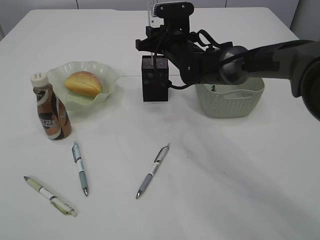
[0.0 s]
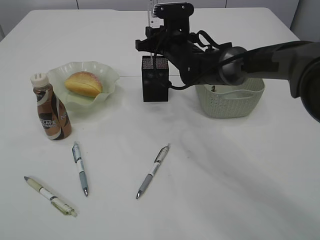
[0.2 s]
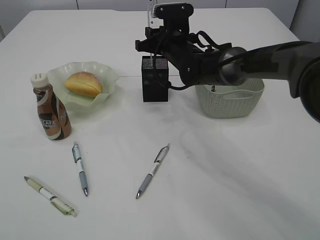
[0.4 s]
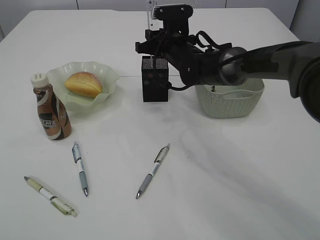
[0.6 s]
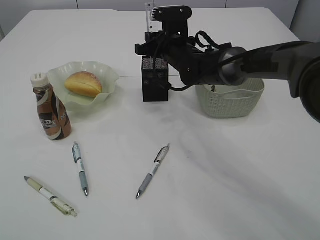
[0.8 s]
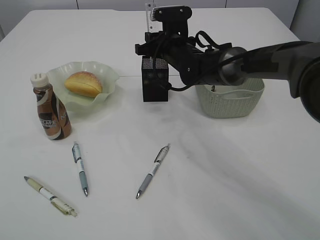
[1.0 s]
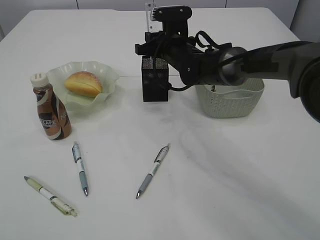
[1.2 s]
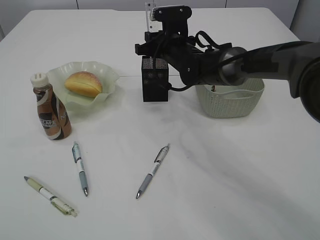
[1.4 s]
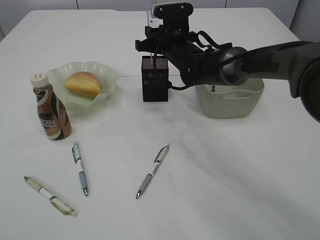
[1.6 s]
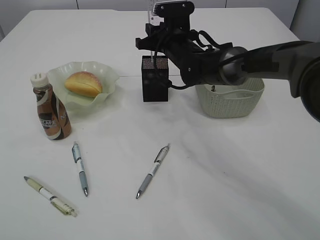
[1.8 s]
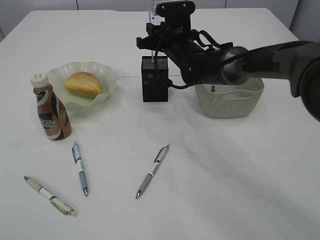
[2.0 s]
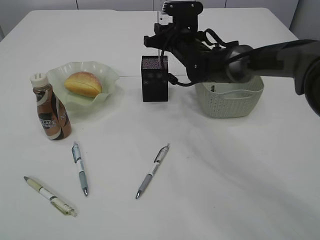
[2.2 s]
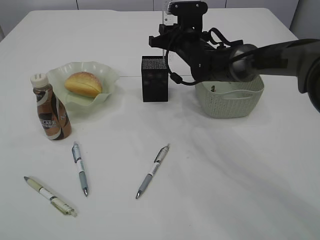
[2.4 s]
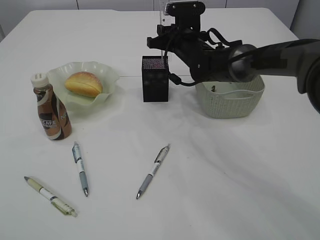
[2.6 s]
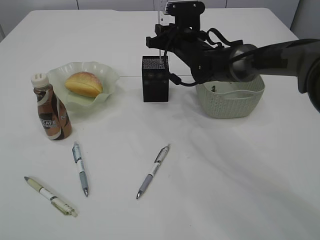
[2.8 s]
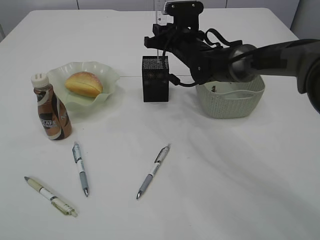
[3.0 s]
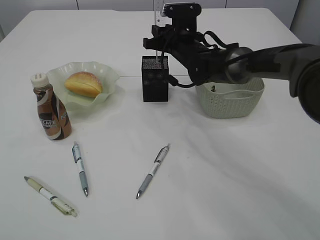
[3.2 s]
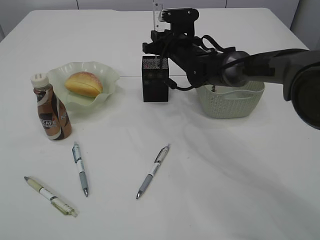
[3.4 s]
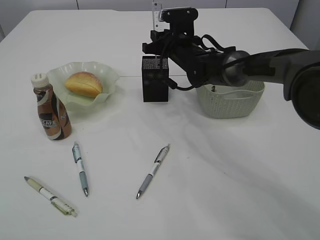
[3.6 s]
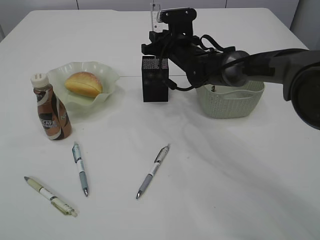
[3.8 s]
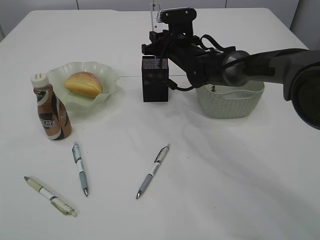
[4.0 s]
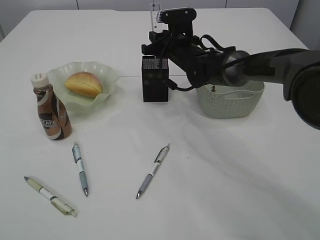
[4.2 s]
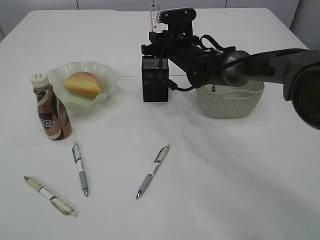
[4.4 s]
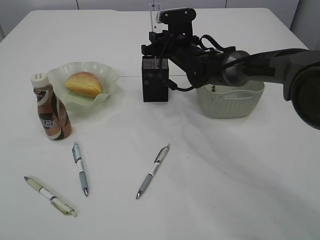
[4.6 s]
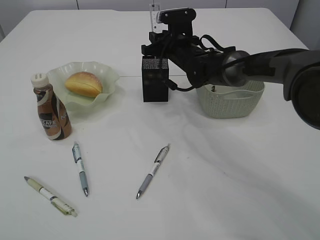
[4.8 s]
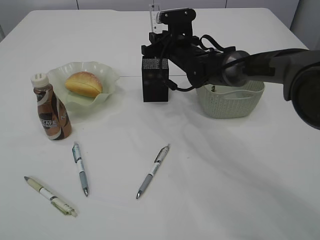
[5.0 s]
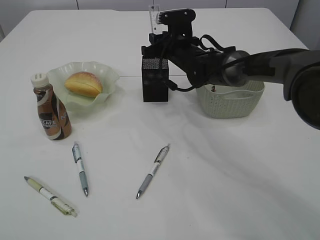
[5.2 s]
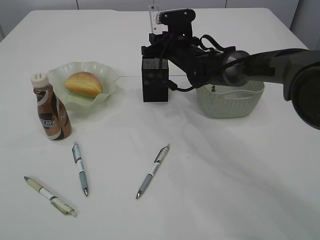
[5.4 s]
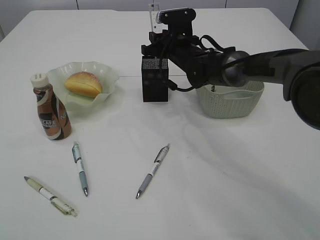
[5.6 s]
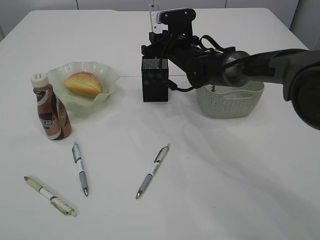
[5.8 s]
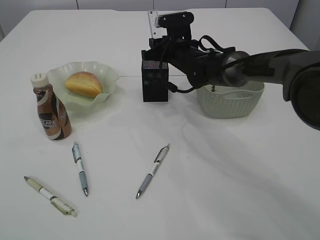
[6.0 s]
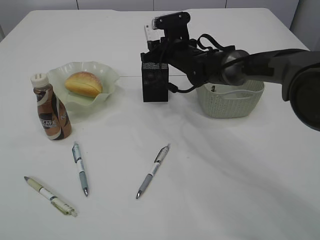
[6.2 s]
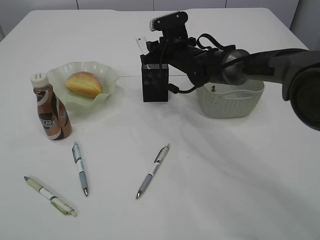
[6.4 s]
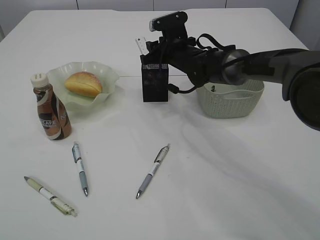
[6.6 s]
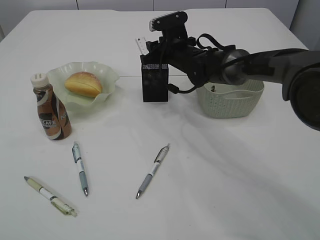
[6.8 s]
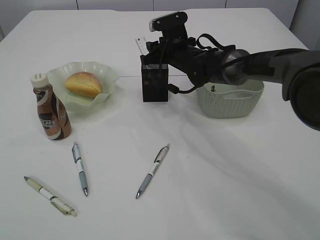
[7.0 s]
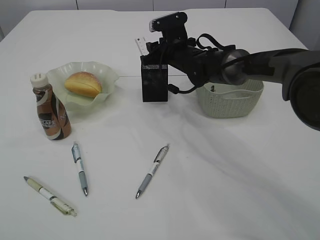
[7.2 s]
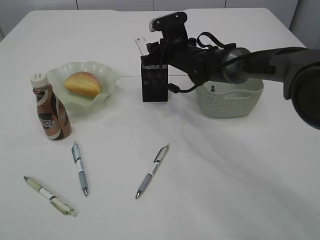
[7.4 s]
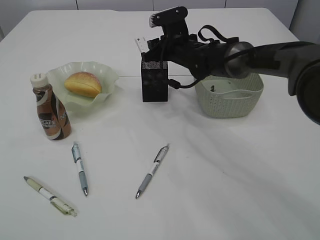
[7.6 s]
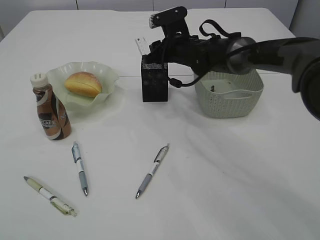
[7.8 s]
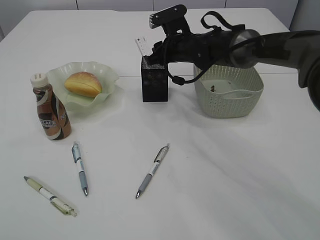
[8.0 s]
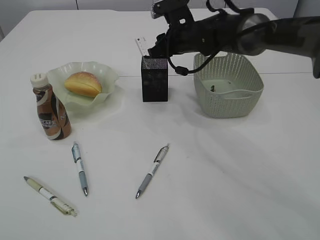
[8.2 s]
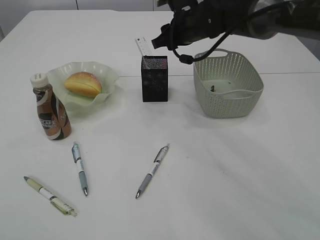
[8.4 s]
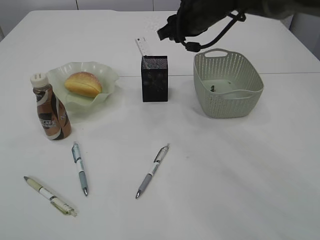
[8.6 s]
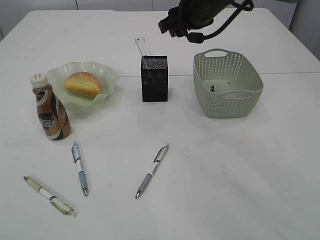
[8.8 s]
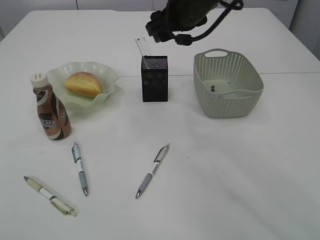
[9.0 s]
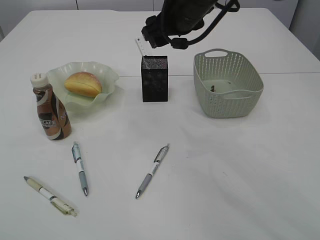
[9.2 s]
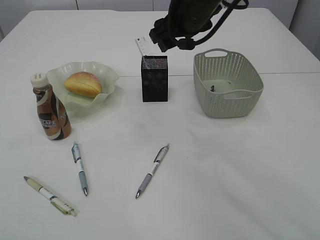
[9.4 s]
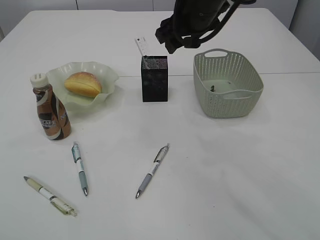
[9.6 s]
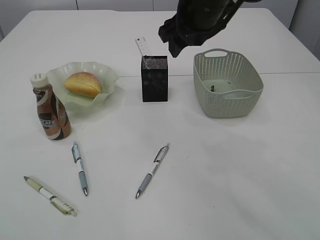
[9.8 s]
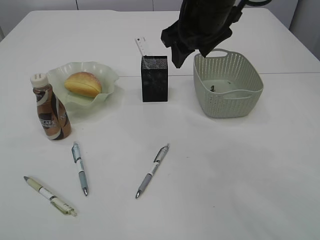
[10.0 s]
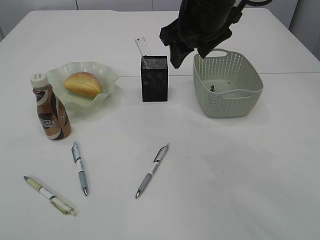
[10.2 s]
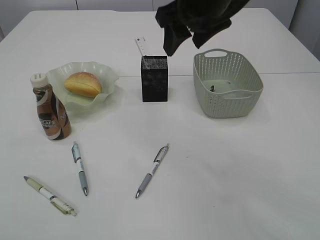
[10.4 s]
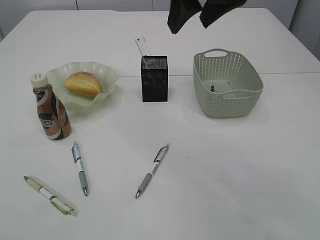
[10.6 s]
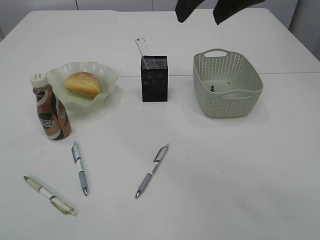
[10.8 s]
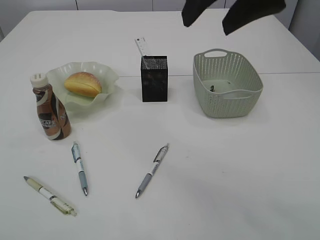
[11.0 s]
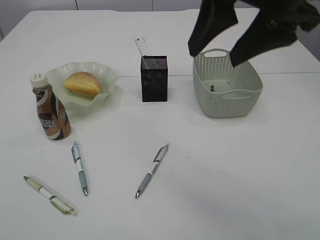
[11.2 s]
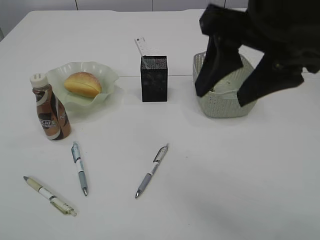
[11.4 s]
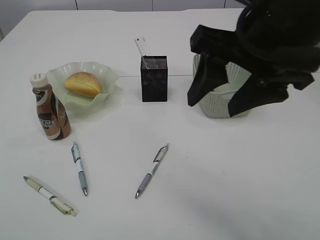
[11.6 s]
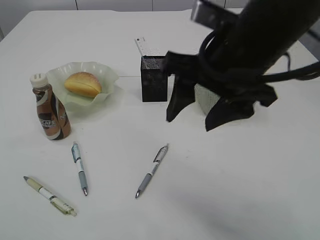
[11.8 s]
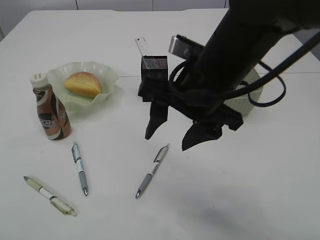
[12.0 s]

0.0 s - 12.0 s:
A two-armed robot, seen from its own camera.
Step, 0.0 s - 8.4 s: Place the ruler into the pen holder.
0.0 s - 1.6 s: Both grippers stay about where they are.
1.6 s - 4.4 s: There are only small adjustments of the grippers.
4.4 s - 6.0 s: Neither gripper changes place.
6.0 s - 7.6 s: The grippers make only small movements.
7.6 s - 9.0 s: The right gripper travels upward and backward by some 15 cm, and opens its fingers.
9.0 s - 10.4 s: The right gripper travels backward by some 10 cm.
10.4 s - 12.0 s: The right gripper heads backward and downward, covering about 10 cm.

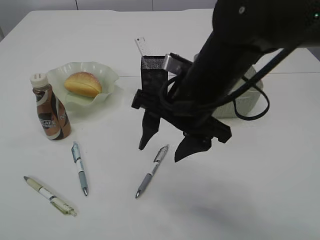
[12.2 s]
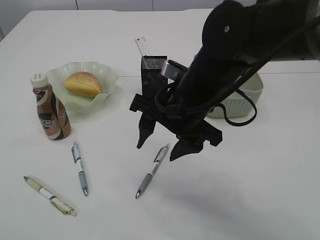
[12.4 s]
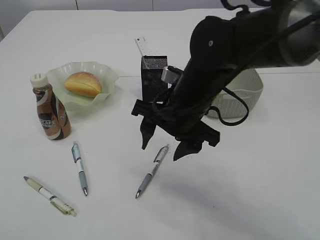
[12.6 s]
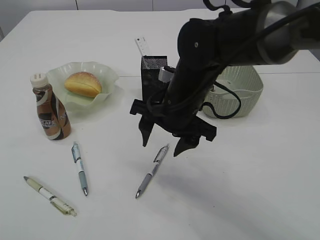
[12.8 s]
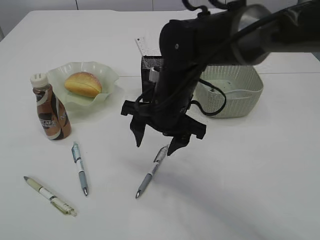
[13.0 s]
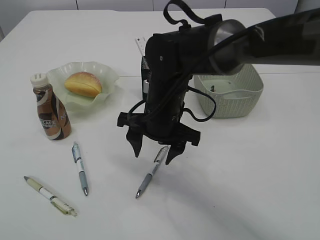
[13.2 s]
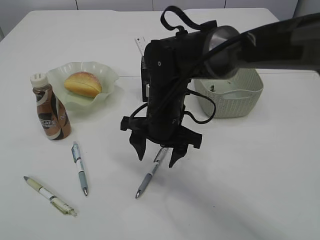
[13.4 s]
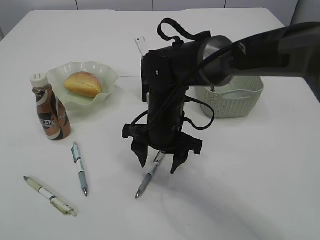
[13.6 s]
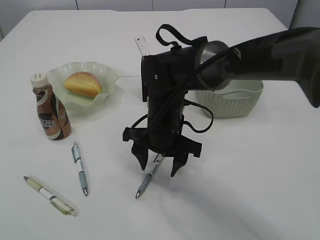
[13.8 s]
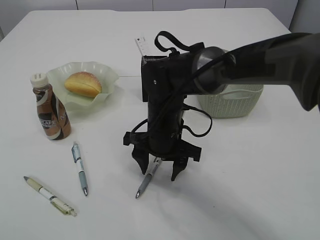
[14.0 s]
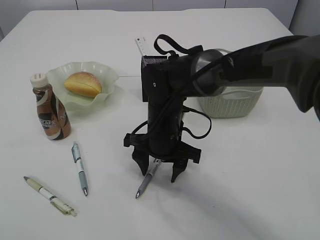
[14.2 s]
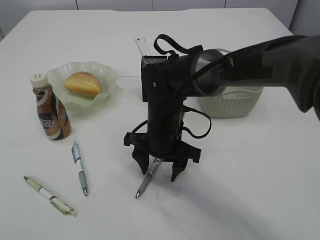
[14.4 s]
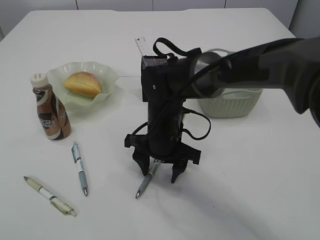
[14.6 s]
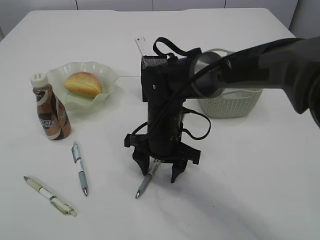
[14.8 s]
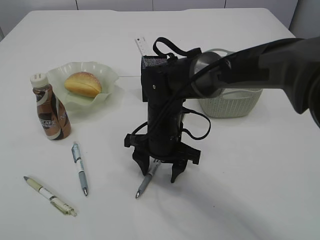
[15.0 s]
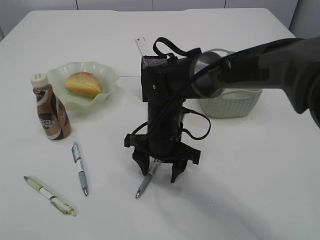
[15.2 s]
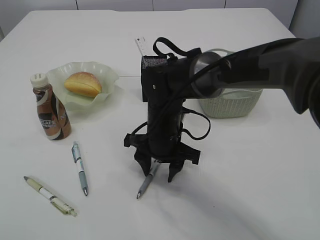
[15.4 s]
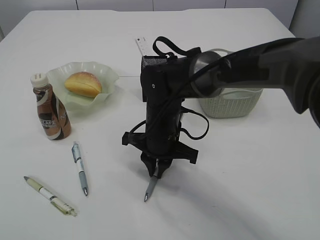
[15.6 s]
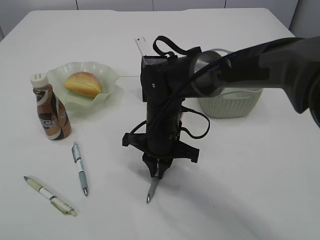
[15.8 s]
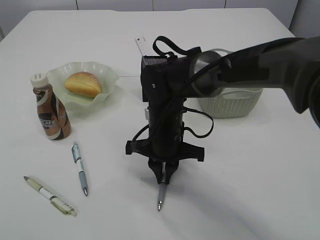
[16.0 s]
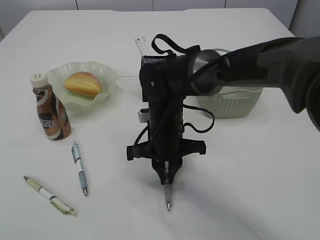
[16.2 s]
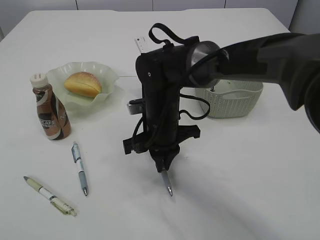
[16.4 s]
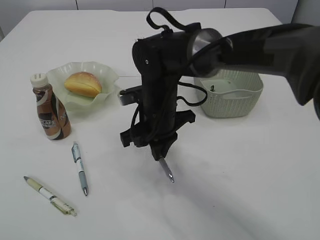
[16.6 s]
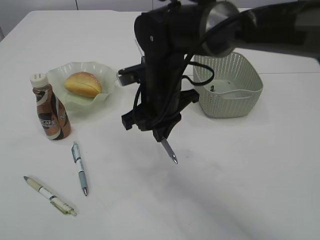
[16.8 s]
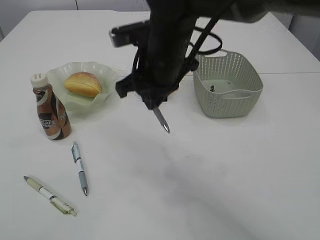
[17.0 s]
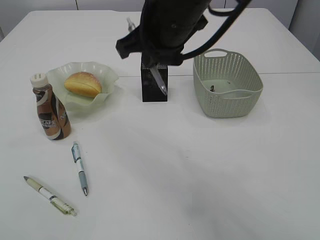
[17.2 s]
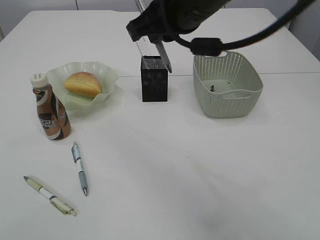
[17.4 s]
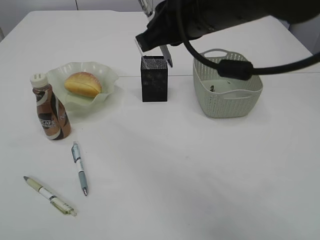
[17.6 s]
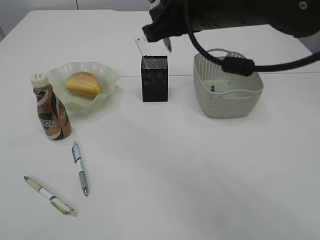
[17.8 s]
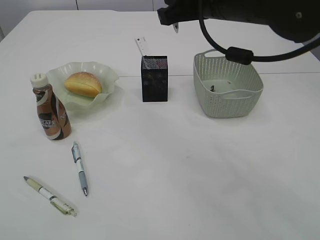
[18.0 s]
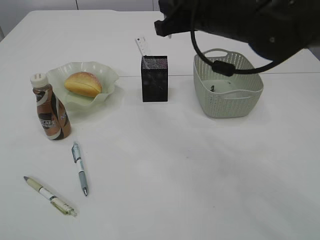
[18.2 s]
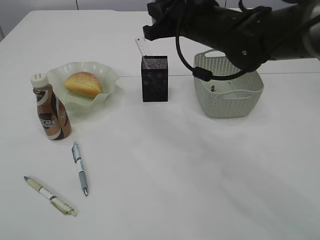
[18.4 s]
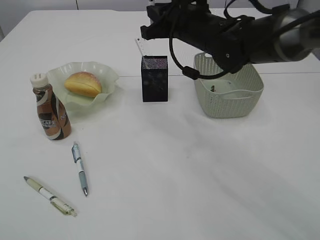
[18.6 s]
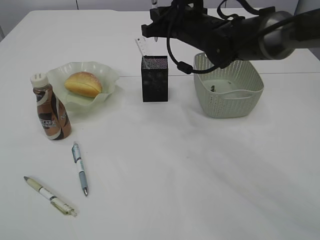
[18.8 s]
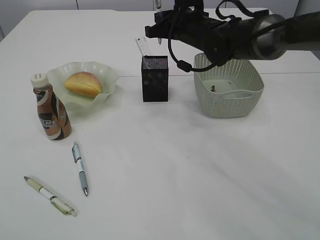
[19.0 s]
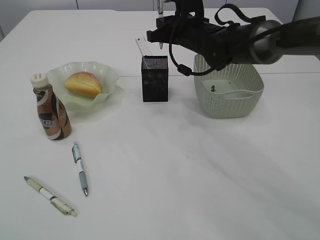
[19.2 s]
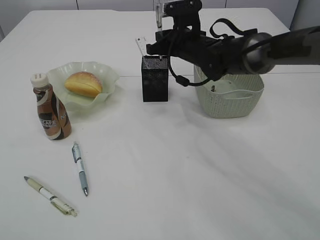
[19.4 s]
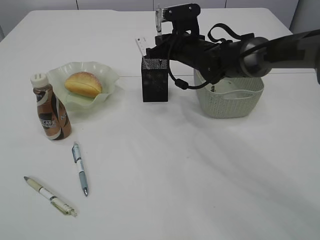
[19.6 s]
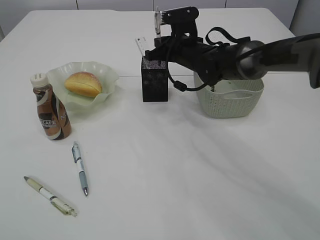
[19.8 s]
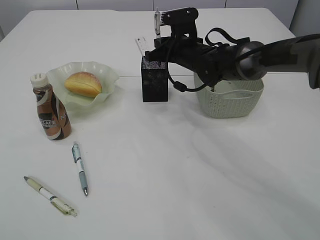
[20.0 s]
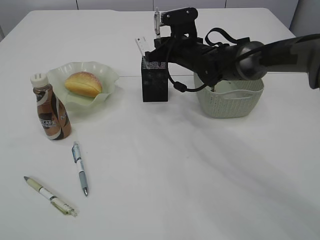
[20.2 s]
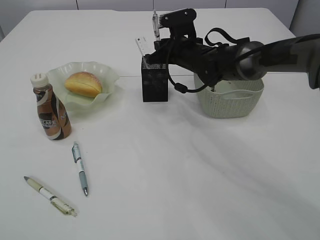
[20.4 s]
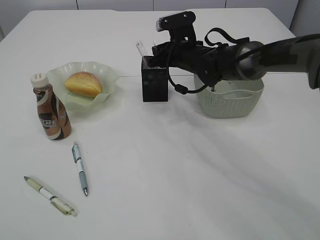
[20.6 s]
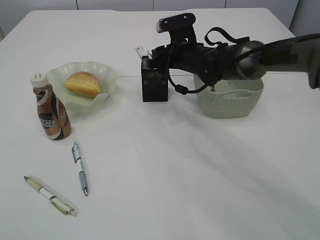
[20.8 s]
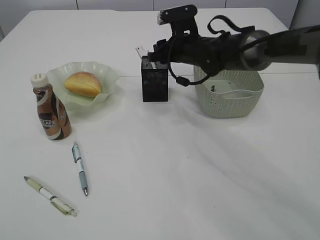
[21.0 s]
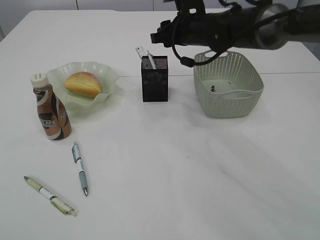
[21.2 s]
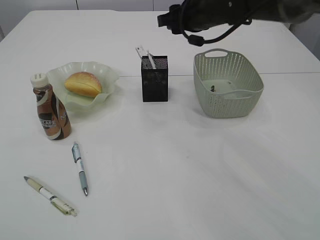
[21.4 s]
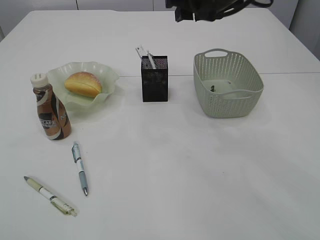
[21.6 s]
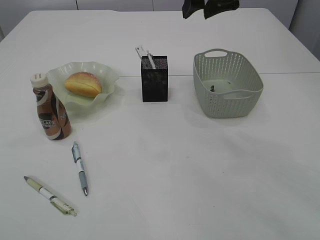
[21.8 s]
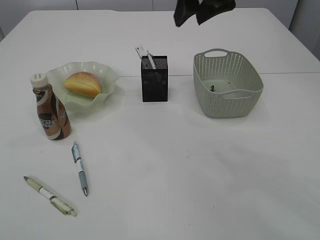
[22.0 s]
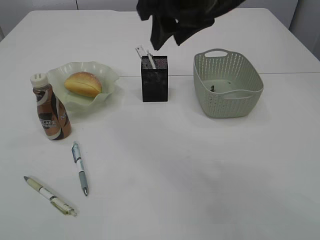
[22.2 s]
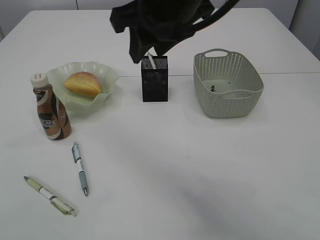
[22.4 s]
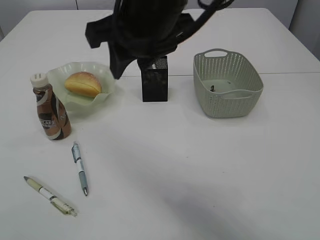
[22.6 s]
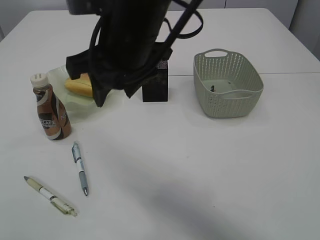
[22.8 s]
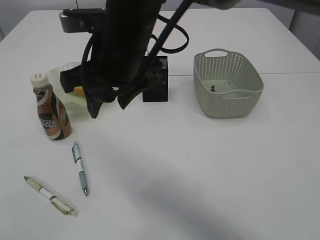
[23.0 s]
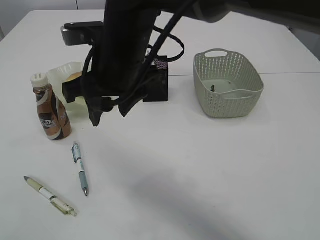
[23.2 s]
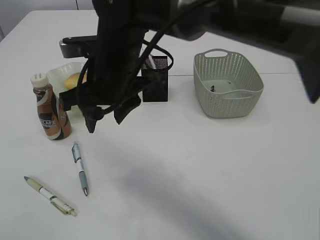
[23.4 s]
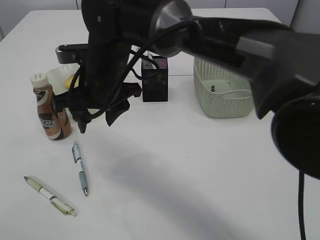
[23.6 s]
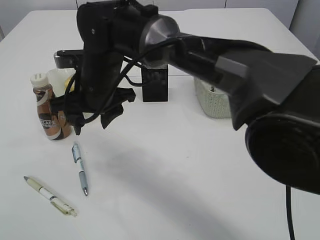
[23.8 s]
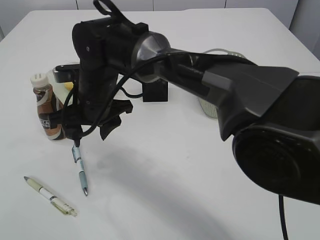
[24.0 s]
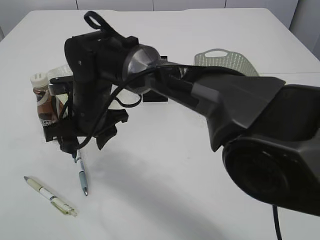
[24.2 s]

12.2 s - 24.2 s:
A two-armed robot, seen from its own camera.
Step, 12.2 s - 16.8 s: Pick up the pen with right arm.
Step, 17.0 s - 21.4 s: Place the pen into the pen holder.
12.2 s - 13.8 s: The right gripper moves downward and forward, some 15 cm.
13.8 s - 15.2 s: The grippers stay close to where they were, moving slightly.
15.2 s - 16.6 s: The right gripper closes up.
16.6 s - 18.2 s: The right gripper is displaced upward and to the right by roughly 15 cm.
18.2 s - 19.8 s: The right gripper is displaced forward and downward by approximately 20 cm.
19.8 s - 21.2 s: The right gripper ends up roughly 5 cm from where it was, and opens up.
21.2 s - 22.6 s: The right gripper heads backward, upward and to the left, covering roughly 25 cm.
22.6 s - 24.2 s: The right gripper moves downward and to the left, about 20 cm.
